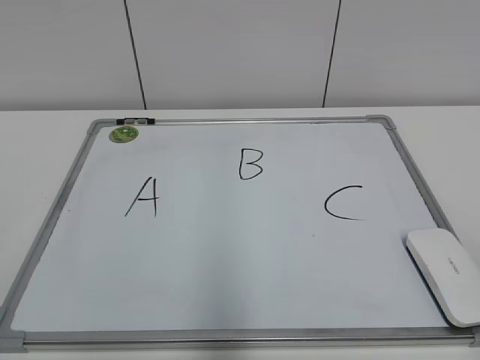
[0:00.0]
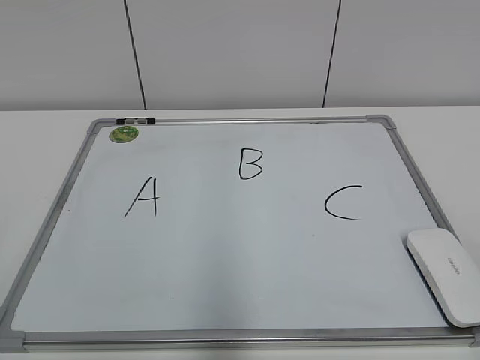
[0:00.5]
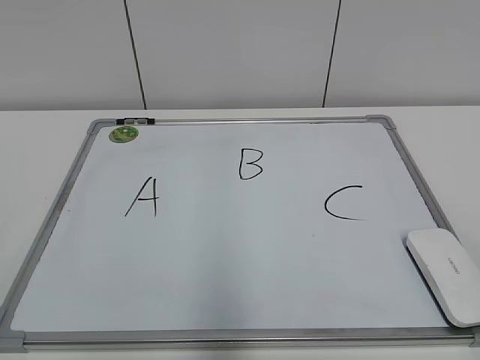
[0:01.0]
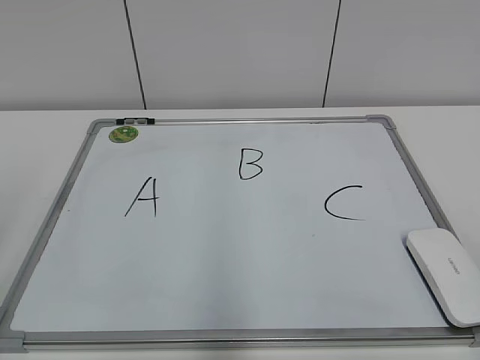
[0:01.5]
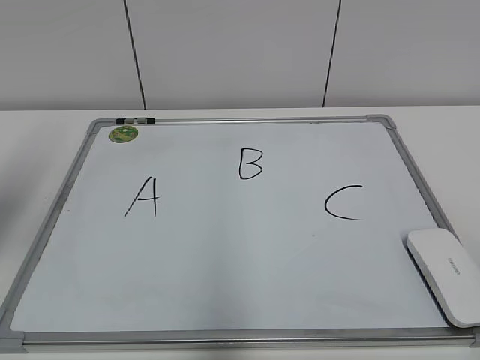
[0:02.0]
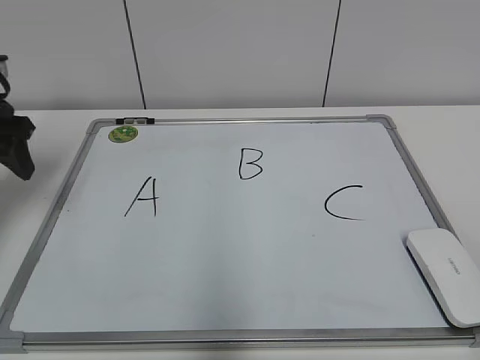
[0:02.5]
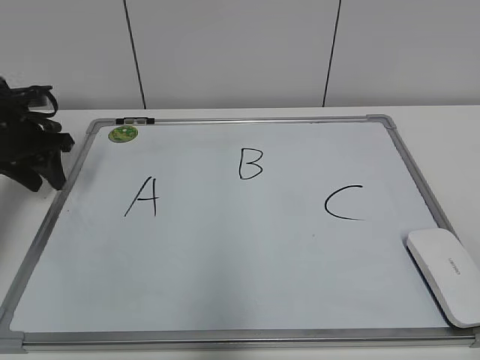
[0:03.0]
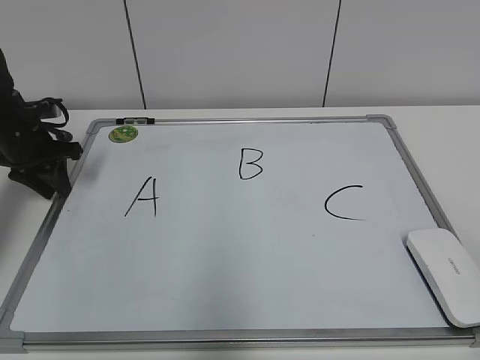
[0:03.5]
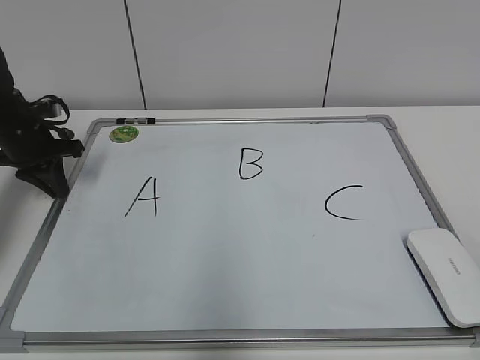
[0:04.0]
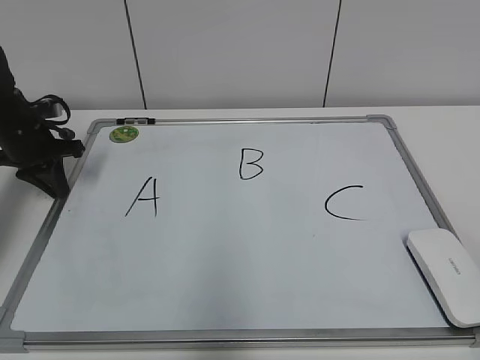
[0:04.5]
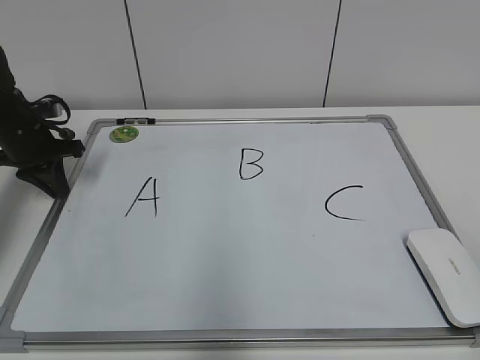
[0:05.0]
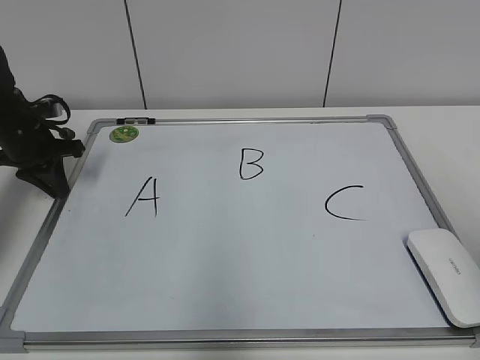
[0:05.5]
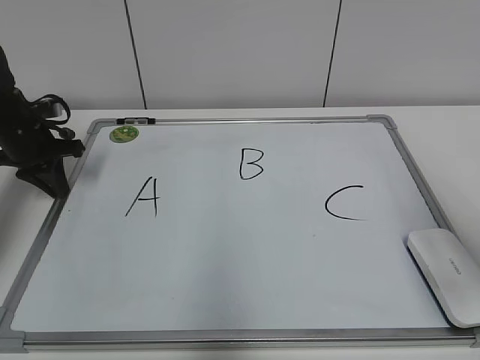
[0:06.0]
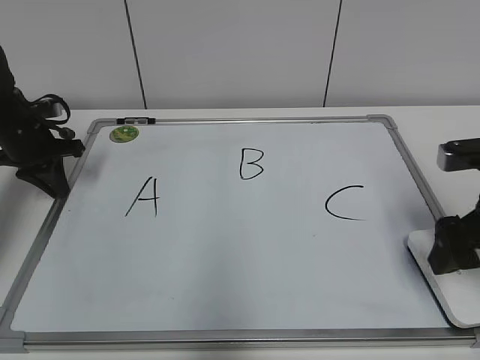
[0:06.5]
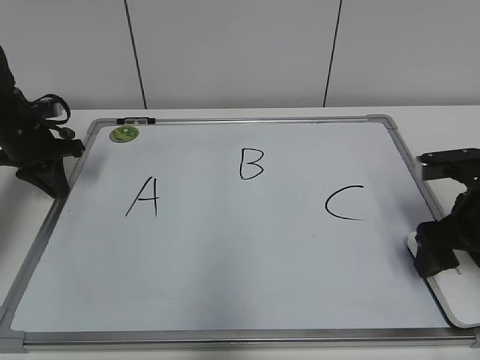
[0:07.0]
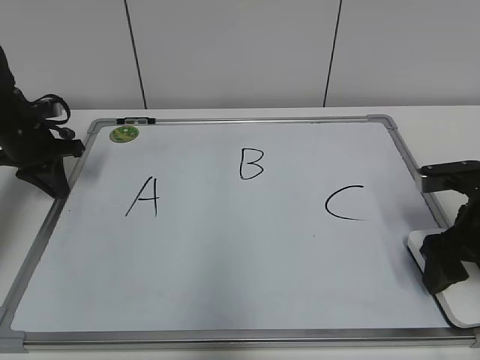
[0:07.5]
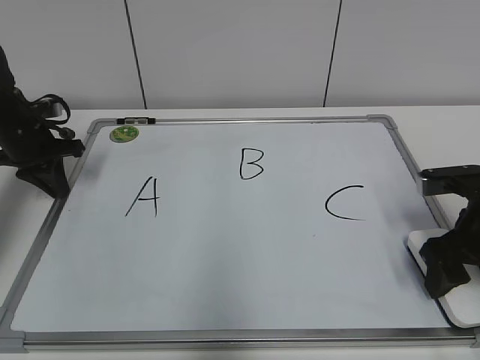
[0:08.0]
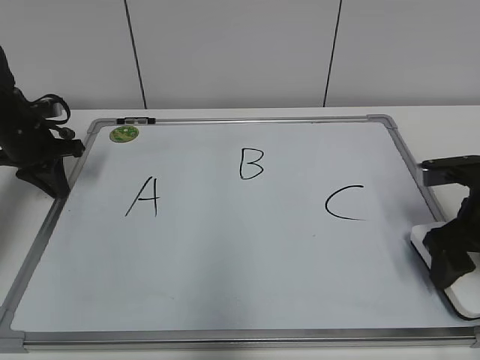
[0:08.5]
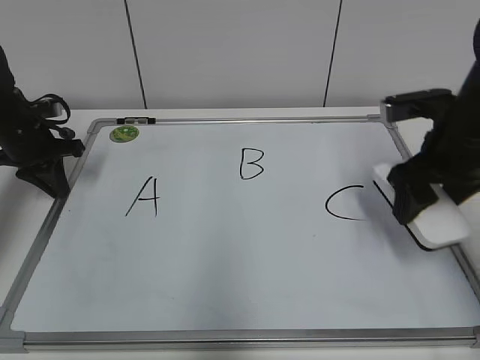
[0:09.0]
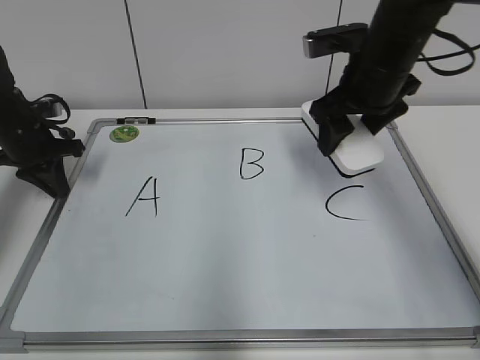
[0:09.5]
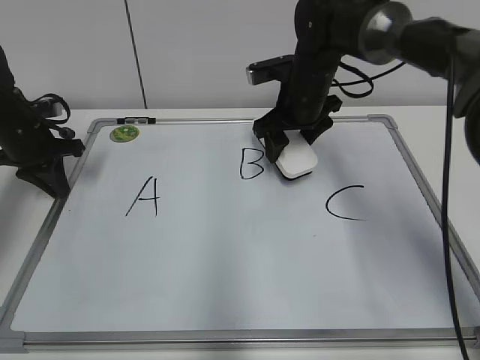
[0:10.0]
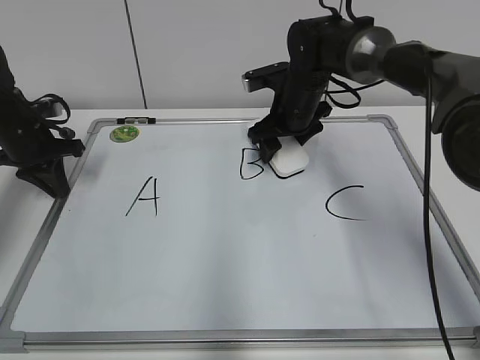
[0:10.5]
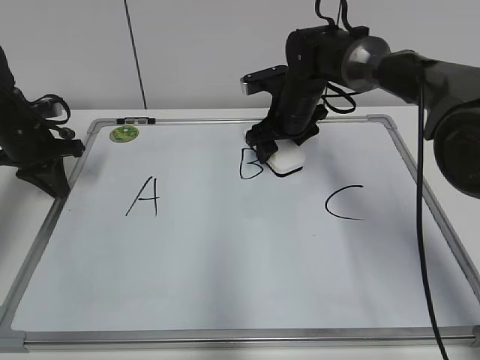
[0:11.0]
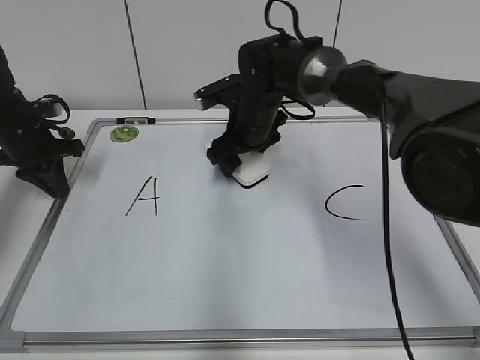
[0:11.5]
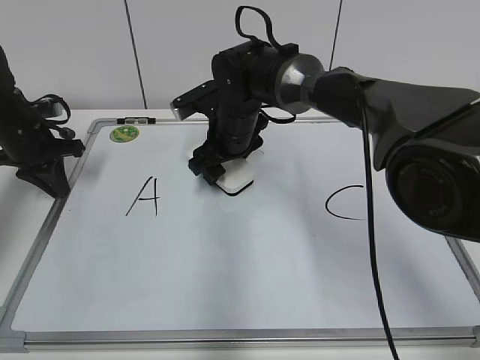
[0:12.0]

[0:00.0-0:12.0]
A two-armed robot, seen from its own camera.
Task of the whole recording: pick up the eraser on the blackboard and erase the letter "B".
Step, 0:00.0 to 0:05.0: Hold the drawing board steady with your left hand.
Step, 0:05.5 to 0:07.5: Grab the eraser with your right hand.
0:02.0 to 0:04.0: The left gripper heads forward and downward, covering some 25 cm, and closes up.
0:04.0 to 0:06.0: The right gripper travels forward by roughly 20 cm.
0:06.0 to 0:08.0: The right gripper goes approximately 15 cm downward and forward, and closes its fingers.
0:08.0 to 0:10.0: The right gripper shifts approximately 25 cm forward and to the left.
0:10.0 to 0:12.0: The right gripper travels to the left by some 10 cm.

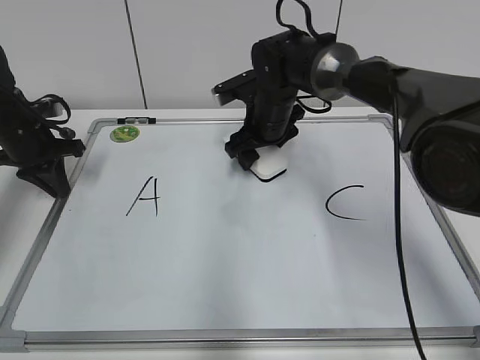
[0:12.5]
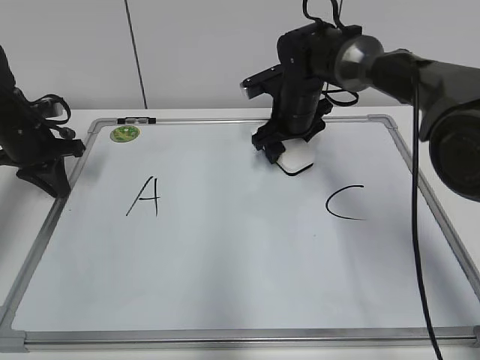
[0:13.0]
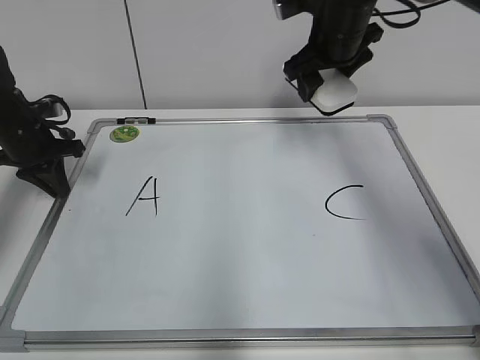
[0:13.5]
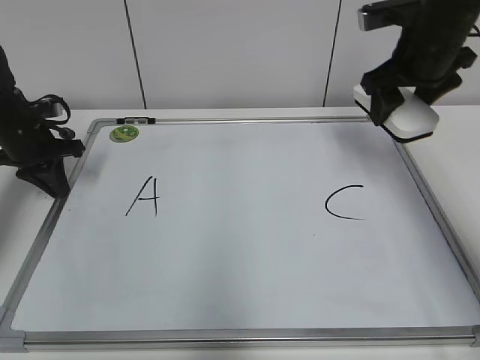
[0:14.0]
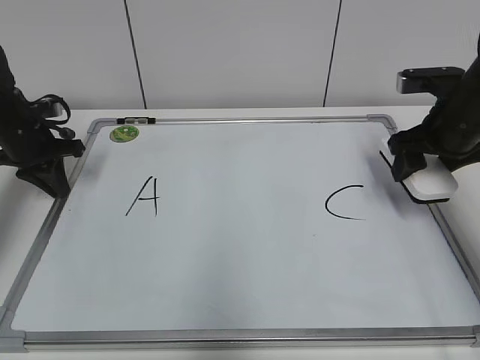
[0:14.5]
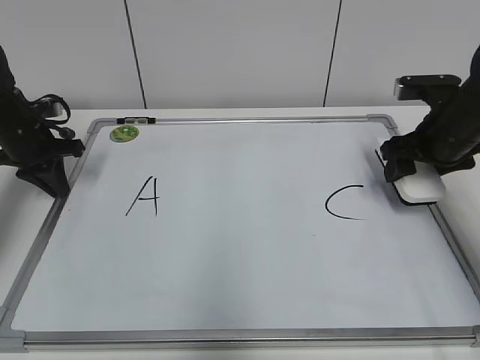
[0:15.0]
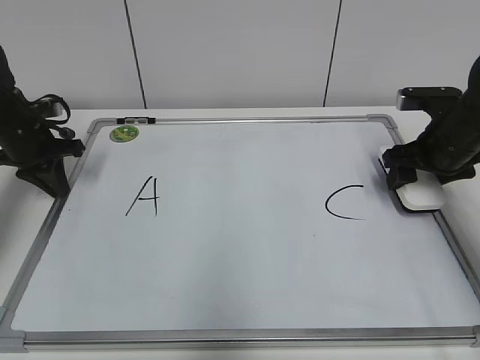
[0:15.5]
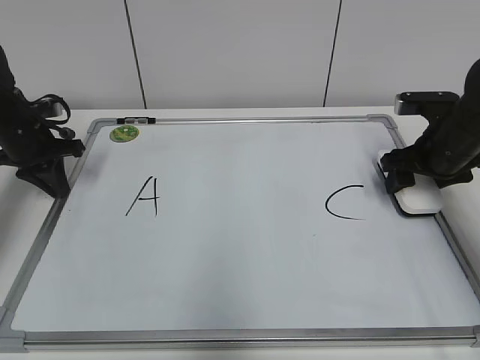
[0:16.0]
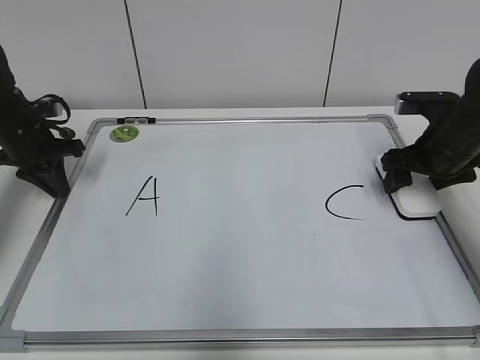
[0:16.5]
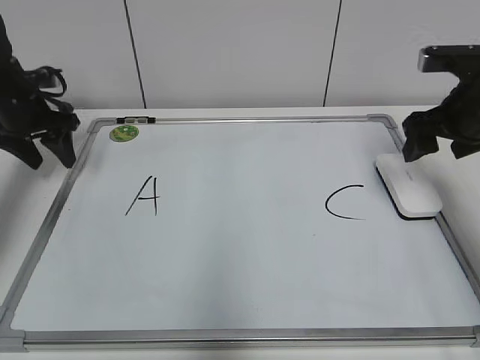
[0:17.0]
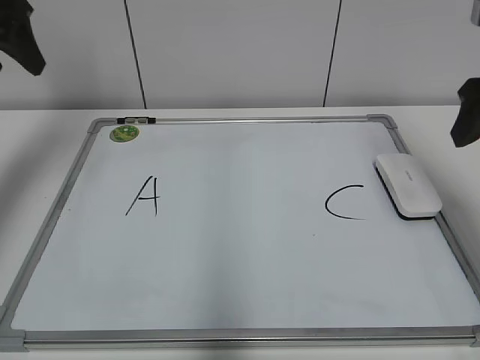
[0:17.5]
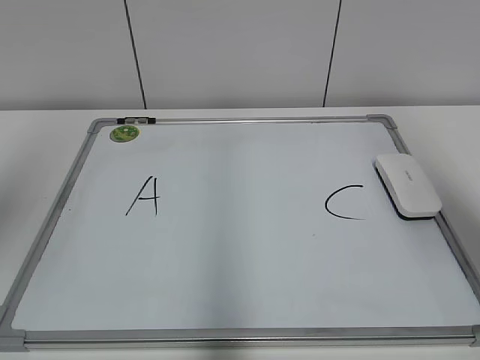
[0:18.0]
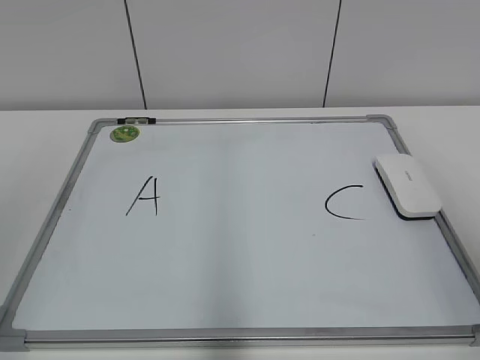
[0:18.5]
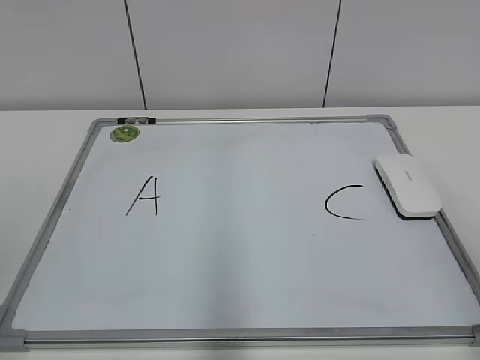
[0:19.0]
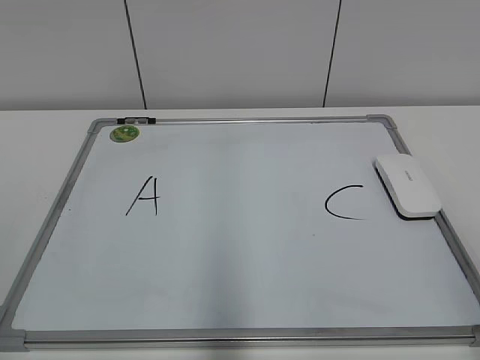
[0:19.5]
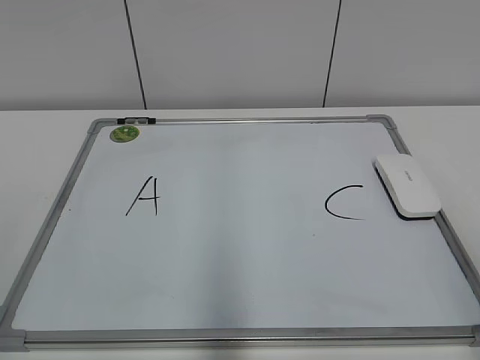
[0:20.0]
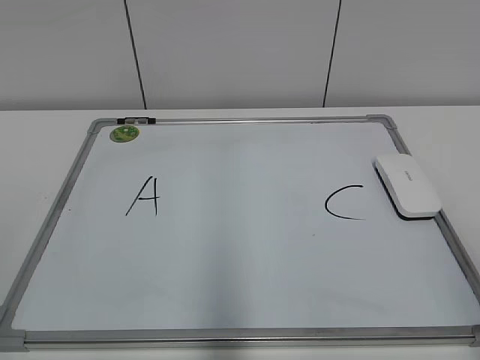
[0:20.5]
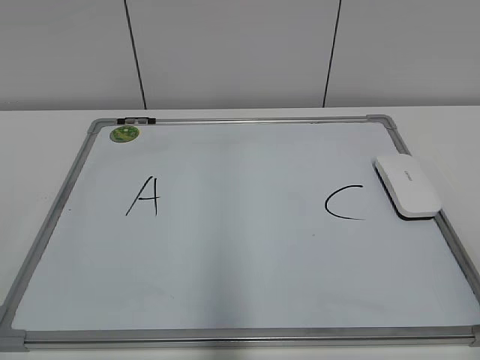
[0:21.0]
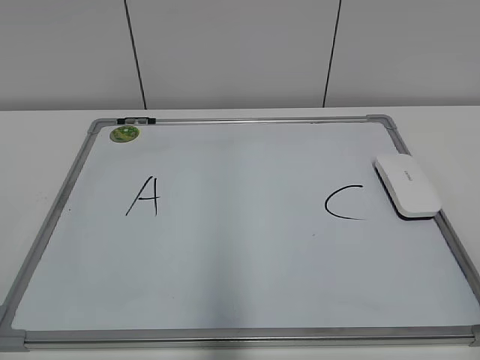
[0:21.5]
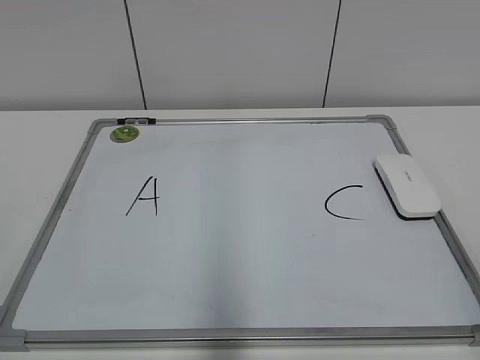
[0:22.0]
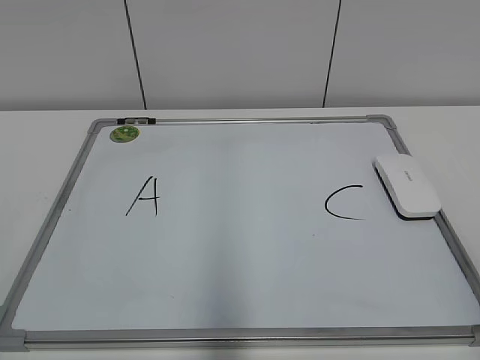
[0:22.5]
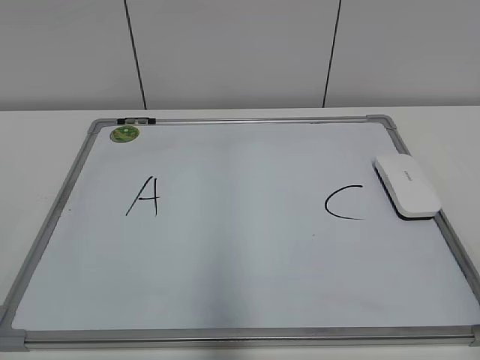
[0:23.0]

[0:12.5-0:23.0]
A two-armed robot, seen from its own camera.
Task of the whole recording: pick up the eraser on the blackboard and erase the letter "B".
Step, 0:13.0 to 0:15.5: Put down the eraser with your right hand.
0:12.5 to 0:14.5: The right gripper is displaced to the right and backward by roughly 25 cm.
0:14.5 to 0:16.5: The right gripper opens up.
0:16.5 to 0:19.0: The two grippers go about 40 cm backward and upward. The left gripper opens.
